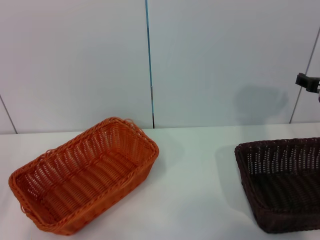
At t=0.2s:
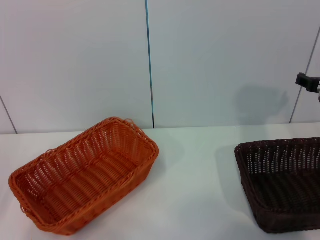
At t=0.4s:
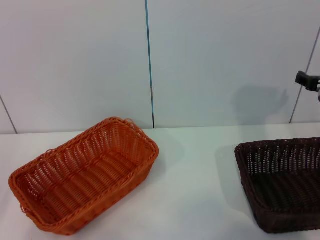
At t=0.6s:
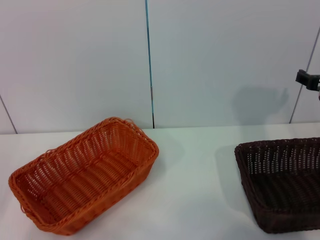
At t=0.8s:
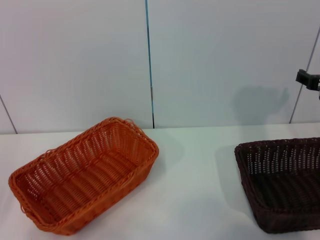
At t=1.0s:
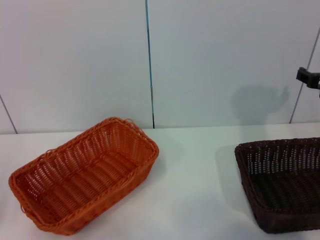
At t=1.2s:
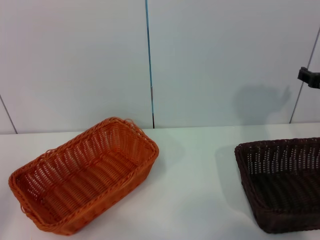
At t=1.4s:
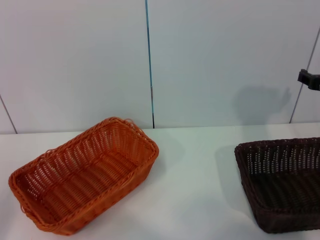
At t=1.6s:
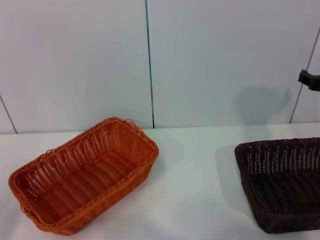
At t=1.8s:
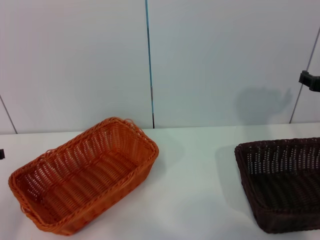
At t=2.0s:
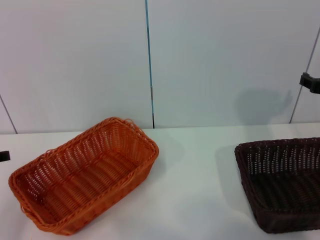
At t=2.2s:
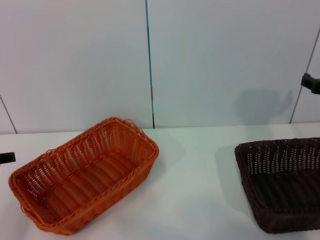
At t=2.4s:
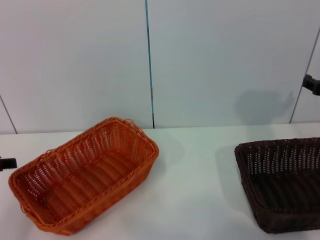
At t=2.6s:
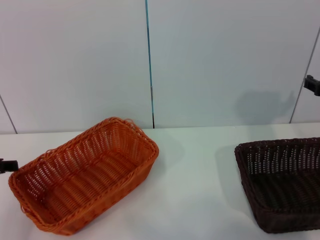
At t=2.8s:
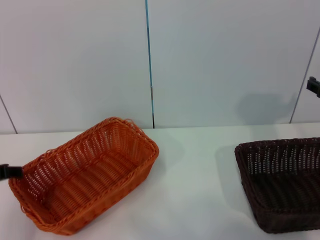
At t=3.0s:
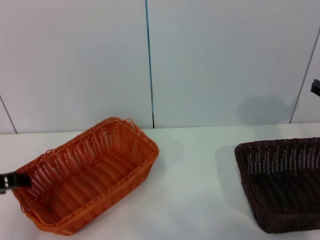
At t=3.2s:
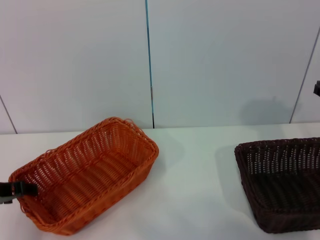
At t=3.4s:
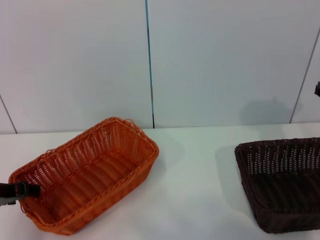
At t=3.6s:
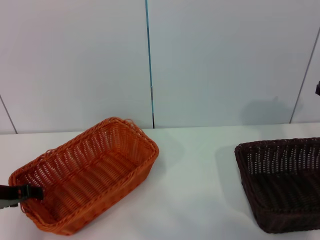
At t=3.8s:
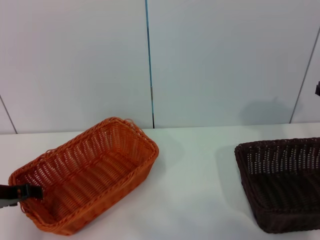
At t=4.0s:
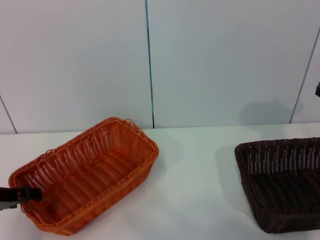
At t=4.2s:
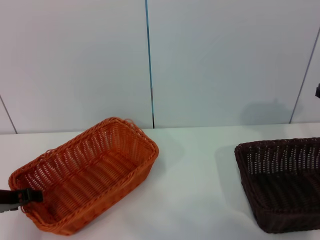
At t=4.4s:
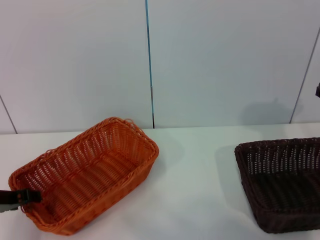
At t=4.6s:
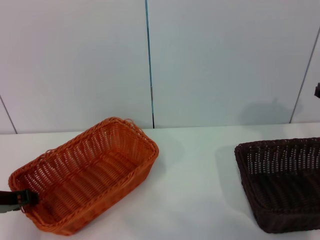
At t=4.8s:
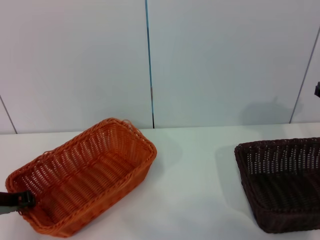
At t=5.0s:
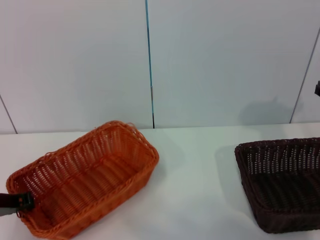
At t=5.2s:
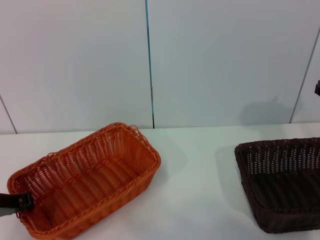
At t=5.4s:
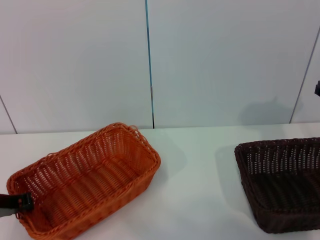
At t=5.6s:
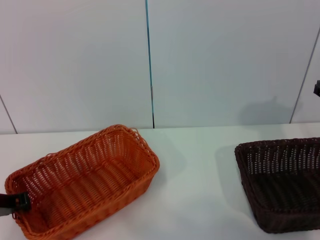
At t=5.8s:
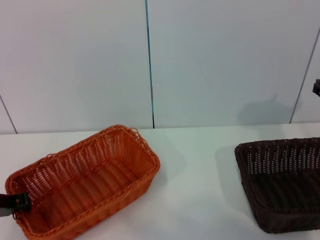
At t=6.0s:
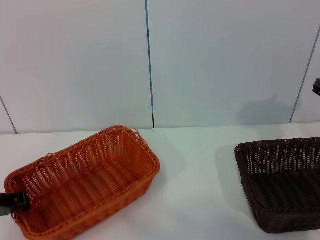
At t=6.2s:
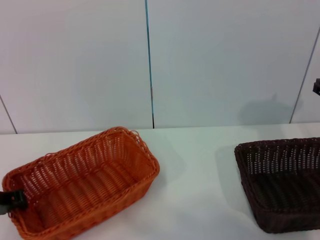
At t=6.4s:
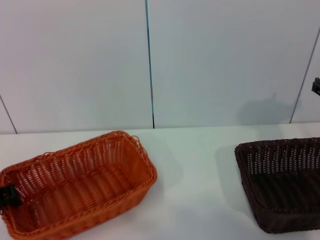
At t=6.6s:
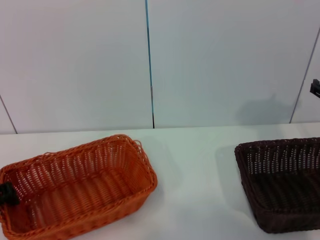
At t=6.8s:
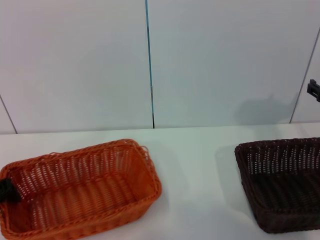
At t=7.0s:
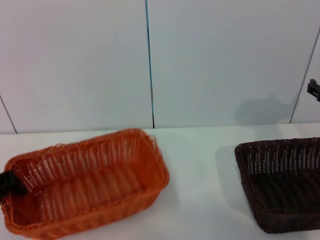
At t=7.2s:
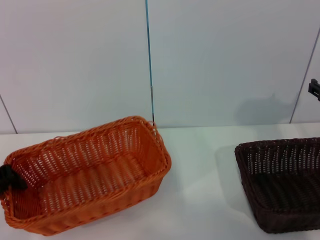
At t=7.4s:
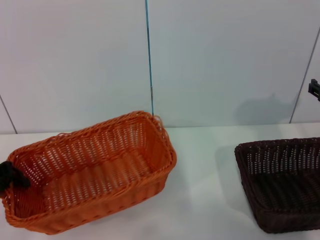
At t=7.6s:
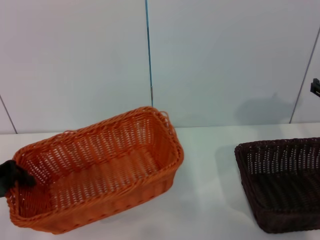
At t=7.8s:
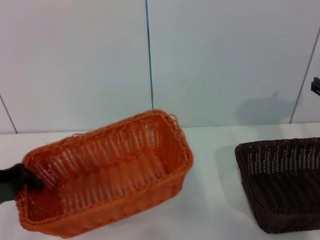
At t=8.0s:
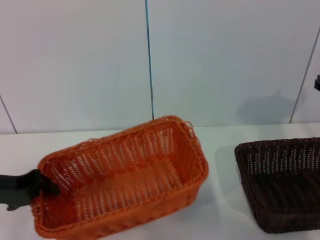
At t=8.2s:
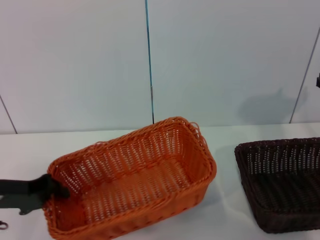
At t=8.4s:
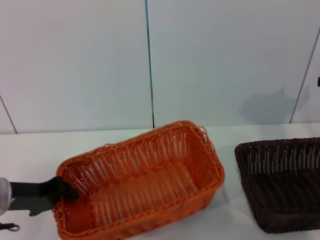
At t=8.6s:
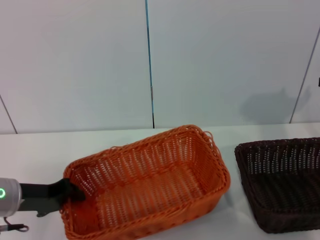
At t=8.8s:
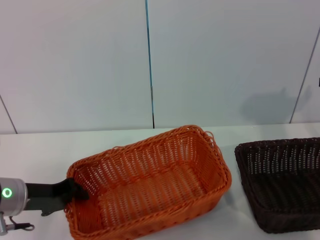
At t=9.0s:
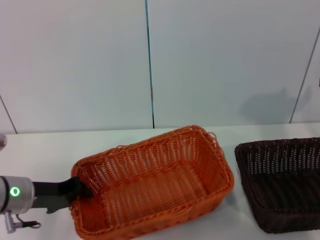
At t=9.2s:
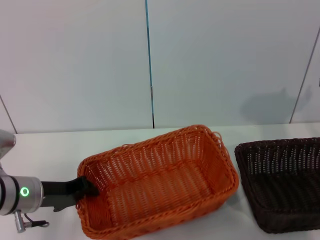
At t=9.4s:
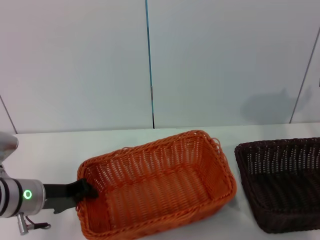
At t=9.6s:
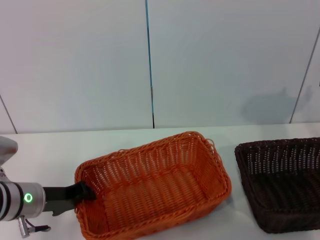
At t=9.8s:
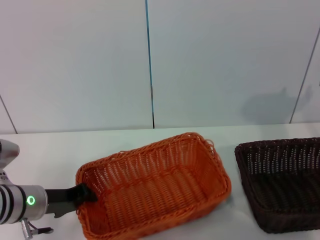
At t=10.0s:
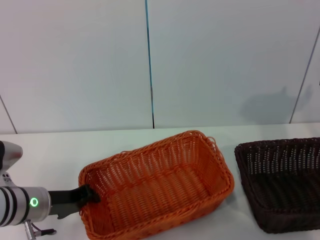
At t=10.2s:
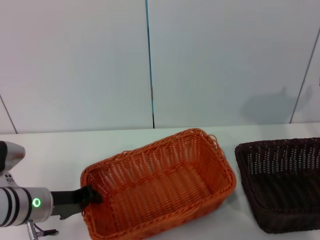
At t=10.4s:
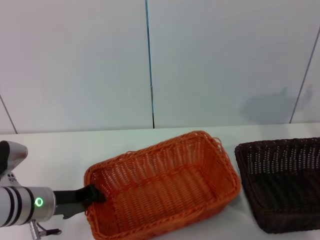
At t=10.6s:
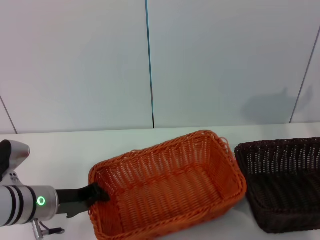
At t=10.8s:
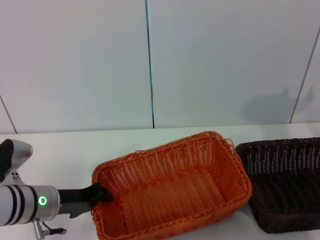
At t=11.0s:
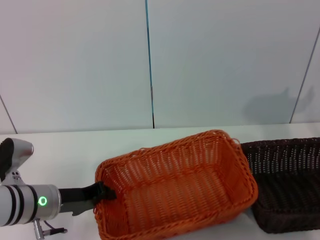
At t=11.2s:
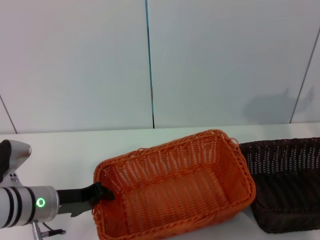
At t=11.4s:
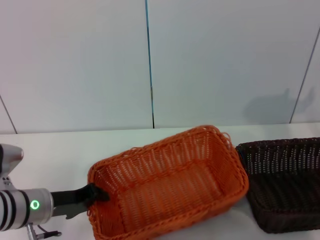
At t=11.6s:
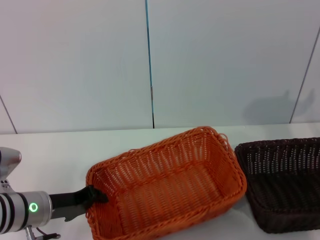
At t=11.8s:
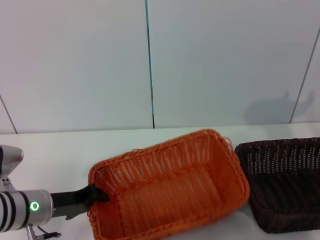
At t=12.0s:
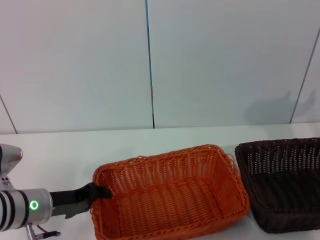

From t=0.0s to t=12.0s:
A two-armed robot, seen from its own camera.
Step, from t=0.0s to t=7.0s: Pick up the light basket with the left gripper.
Step, from t=7.2s to t=11.8s: Place the light basket in the center of view with the left gripper.
From t=0.0s to t=1.6s: The left gripper moves roughly 5 cm.
From t=1.6s to t=3.0s: The left gripper moves to the right, some 5 cm.
From t=3.0s to t=4.4s: The left gripper is displaced downward by roughly 5 cm.
From t=4.4s to t=6.0s: The left gripper closes its fingers.
From t=6.0s to t=7.6s: The left gripper moves upward, some 5 cm.
From t=7.6s to t=9.0s: The left gripper moves to the right and downward, roughly 10 cm.
From t=9.0s to t=12.0s: There are only small adjustments of the grippers.

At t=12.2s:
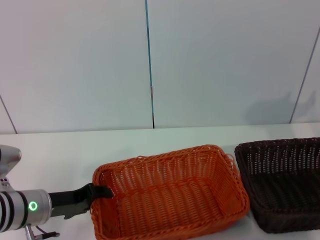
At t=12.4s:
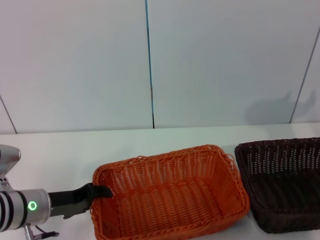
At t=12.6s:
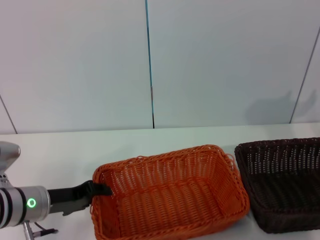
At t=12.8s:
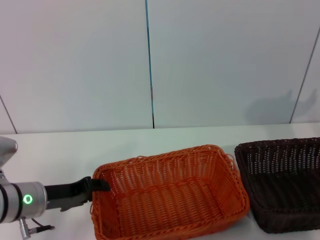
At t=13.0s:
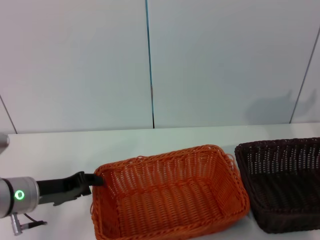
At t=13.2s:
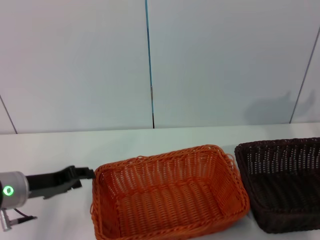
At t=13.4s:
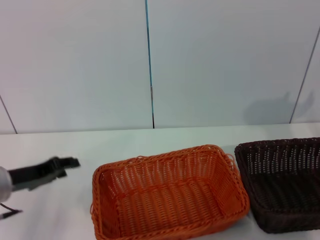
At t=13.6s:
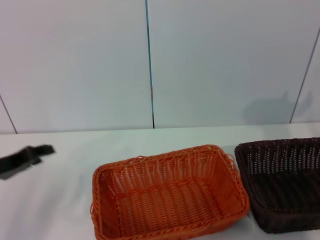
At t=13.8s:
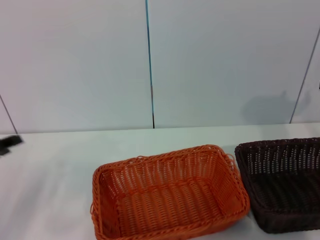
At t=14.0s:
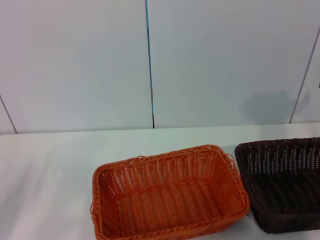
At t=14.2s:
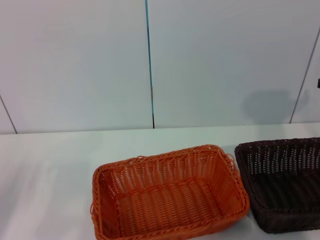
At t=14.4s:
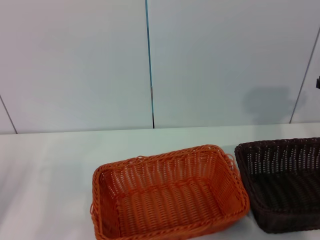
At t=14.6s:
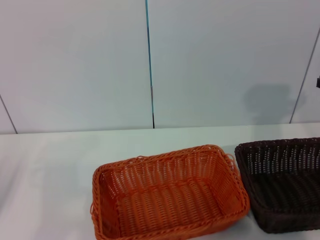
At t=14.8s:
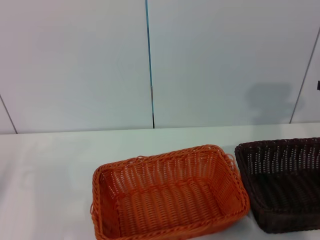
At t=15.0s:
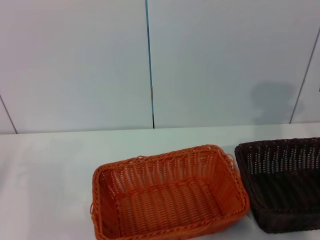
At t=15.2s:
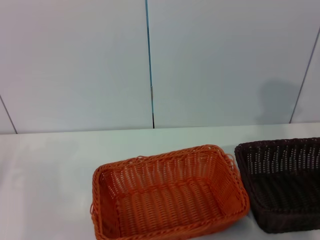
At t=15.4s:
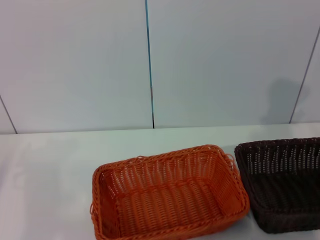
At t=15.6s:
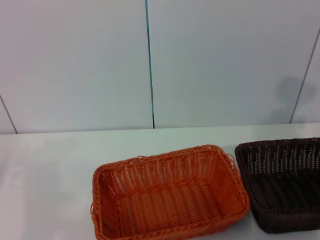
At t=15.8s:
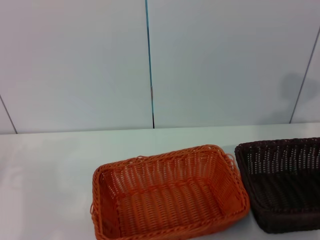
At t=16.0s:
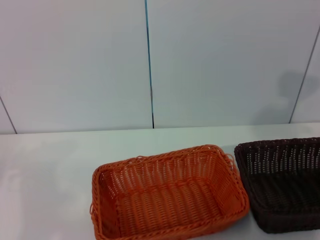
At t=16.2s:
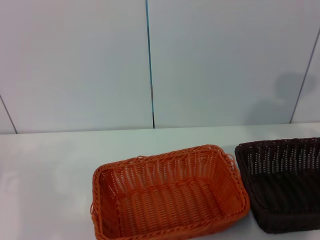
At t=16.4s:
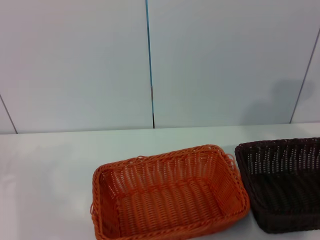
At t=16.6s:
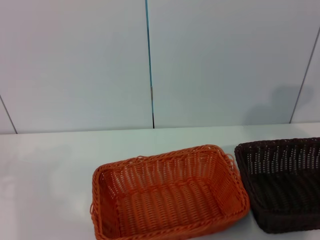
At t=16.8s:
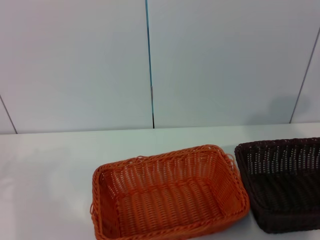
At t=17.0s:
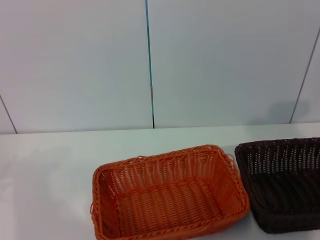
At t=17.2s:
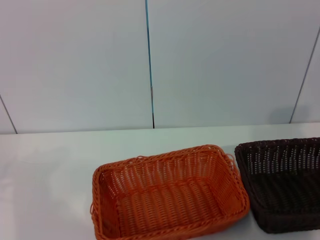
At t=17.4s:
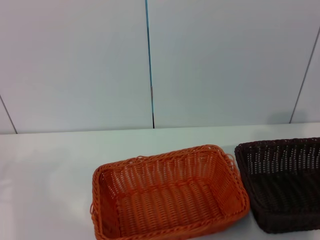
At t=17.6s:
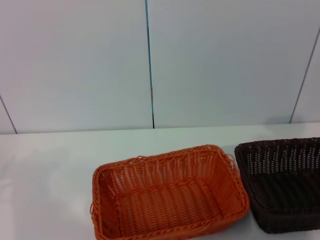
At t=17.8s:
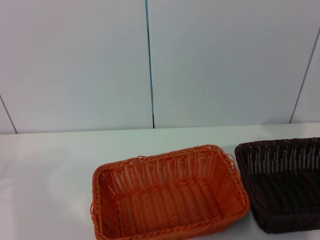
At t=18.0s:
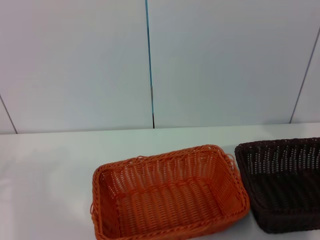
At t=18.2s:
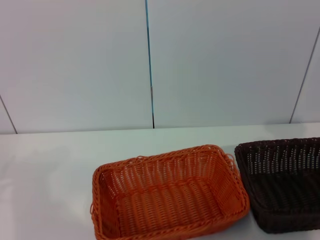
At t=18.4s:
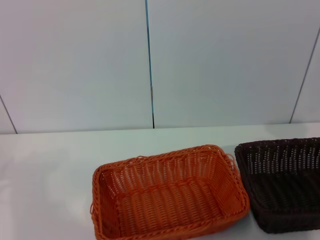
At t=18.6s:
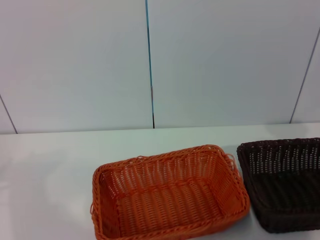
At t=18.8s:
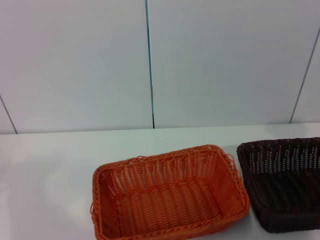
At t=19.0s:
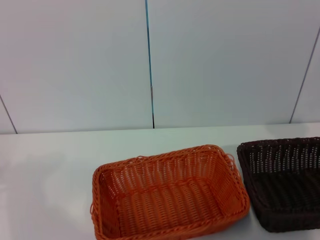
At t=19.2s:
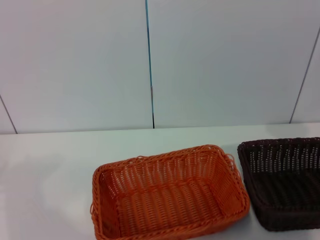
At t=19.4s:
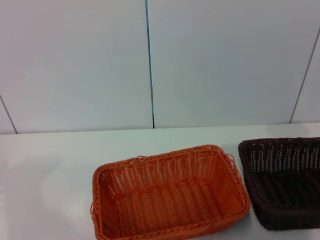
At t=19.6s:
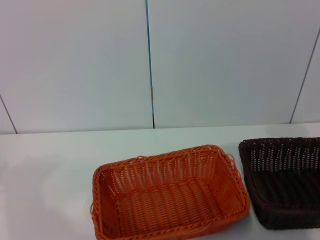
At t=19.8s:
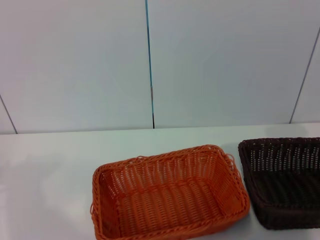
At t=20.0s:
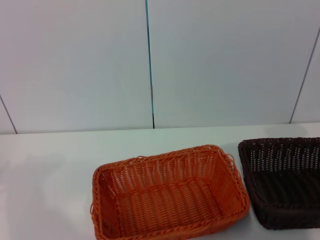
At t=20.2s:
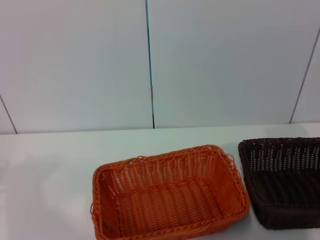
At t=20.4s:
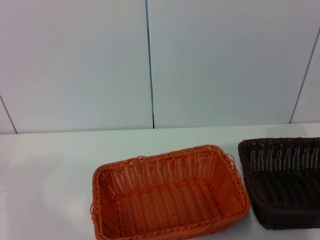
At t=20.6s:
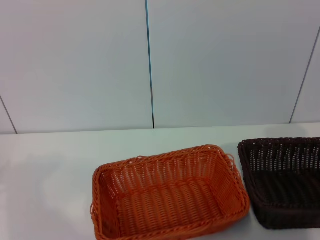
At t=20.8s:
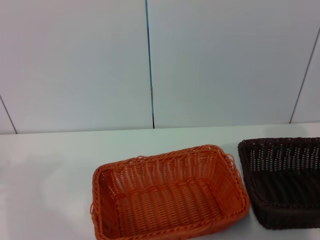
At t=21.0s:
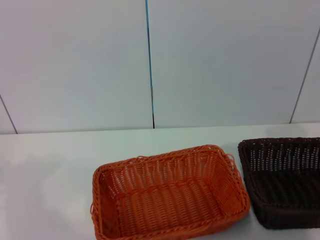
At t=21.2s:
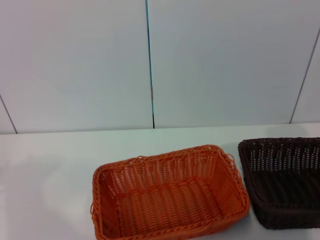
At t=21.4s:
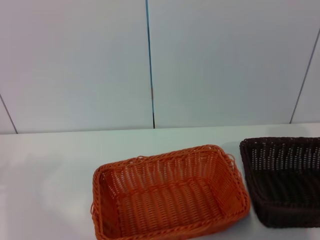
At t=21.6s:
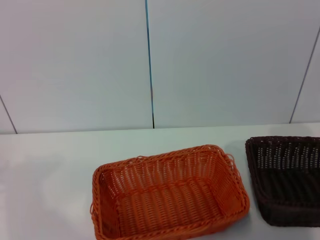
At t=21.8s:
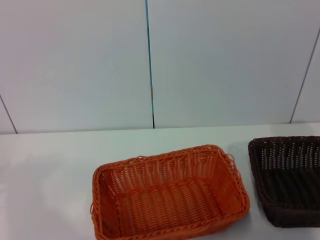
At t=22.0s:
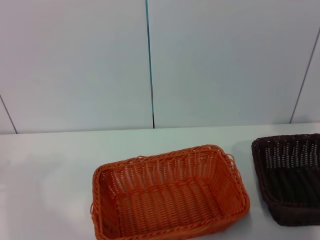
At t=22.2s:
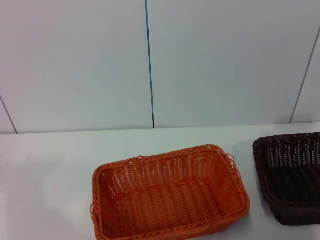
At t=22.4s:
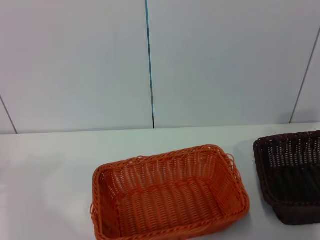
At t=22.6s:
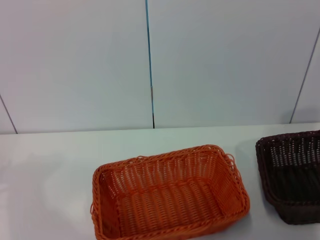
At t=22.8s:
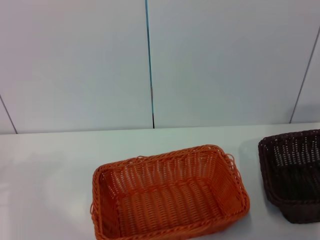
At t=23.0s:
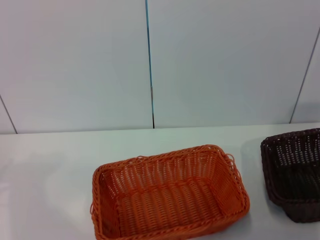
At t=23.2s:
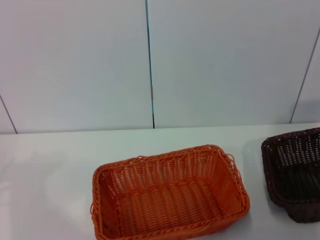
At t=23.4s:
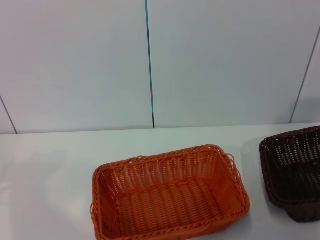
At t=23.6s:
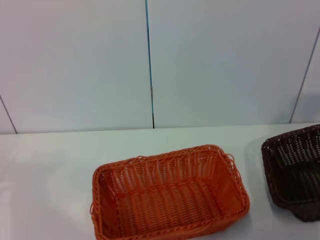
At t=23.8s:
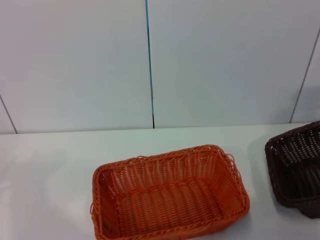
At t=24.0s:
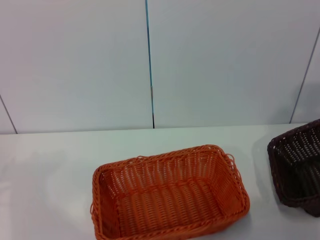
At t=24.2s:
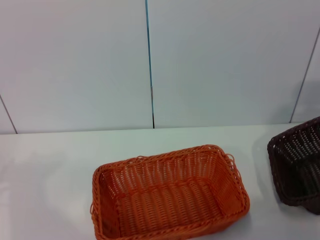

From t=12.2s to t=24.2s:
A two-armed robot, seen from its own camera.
Step, from t=12.2s to t=22.0s: Pick up the dark basket with the right gripper.
From t=12.2s to t=13.8s: The left gripper moves to the left and upward, approximately 10 cm, and opens up.
From t=13.8s to t=15.2s: The left gripper travels to the left by approximately 5 cm.
From t=18.2s to t=19.8s: The right gripper closes its fingers.
From t=19.8s to t=21.2s: Both grippers stay put.
From t=21.2s to t=22.6s: The right gripper goes approximately 5 cm upward.
From t=22.6s to t=24.2s: The right gripper is displaced upward by approximately 10 cm.
